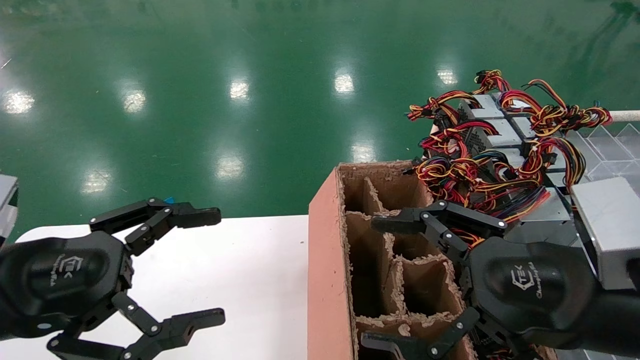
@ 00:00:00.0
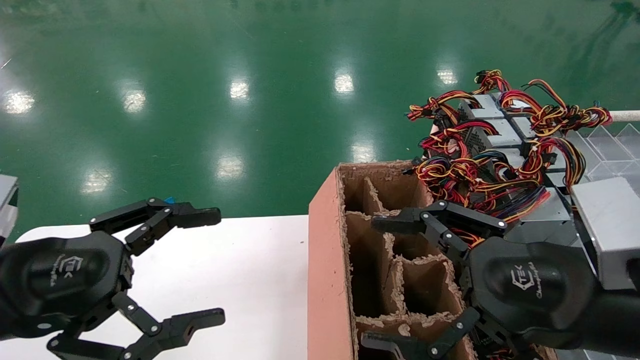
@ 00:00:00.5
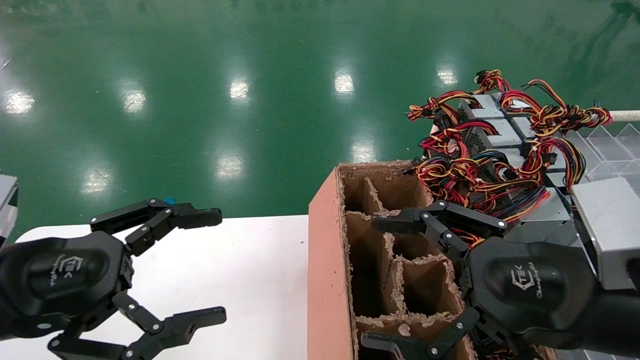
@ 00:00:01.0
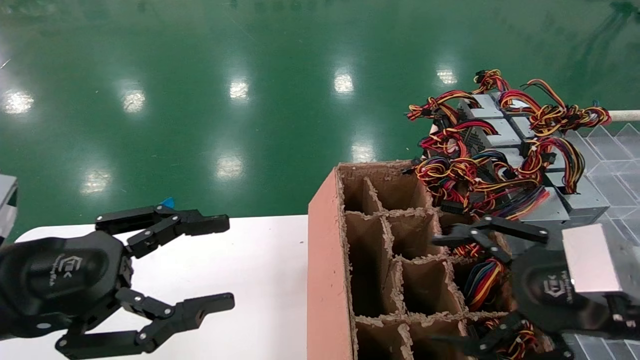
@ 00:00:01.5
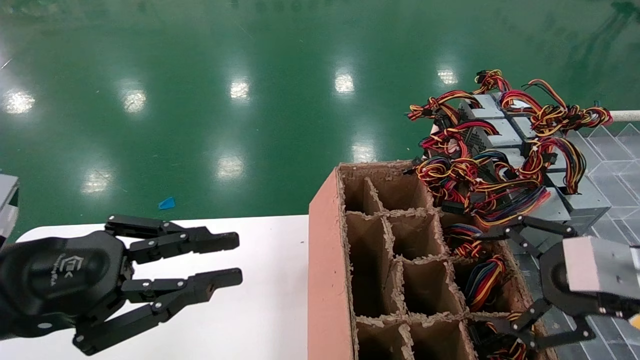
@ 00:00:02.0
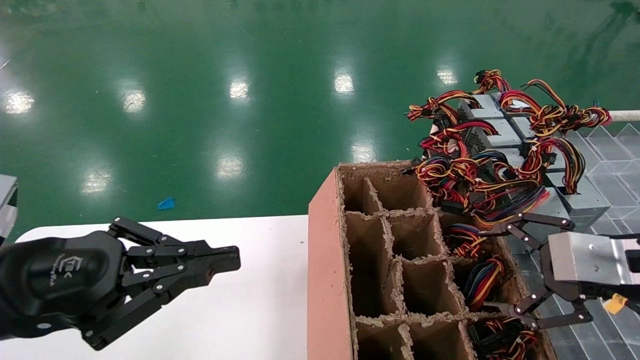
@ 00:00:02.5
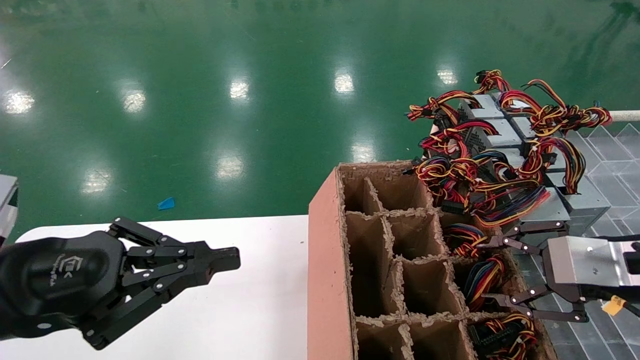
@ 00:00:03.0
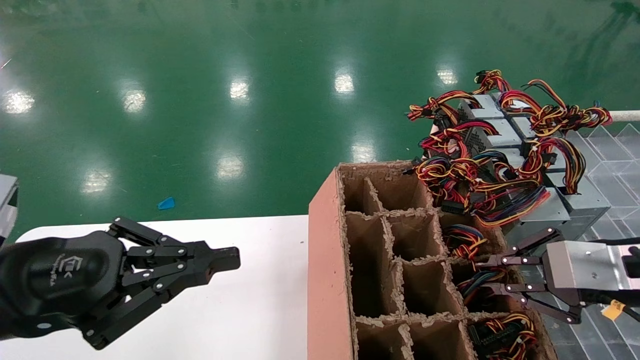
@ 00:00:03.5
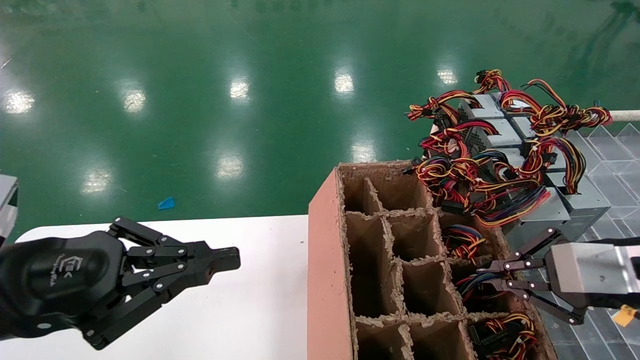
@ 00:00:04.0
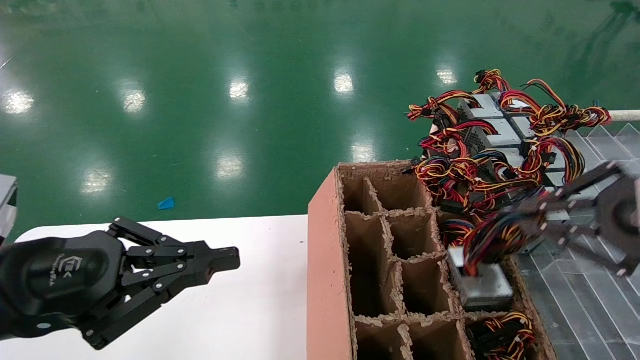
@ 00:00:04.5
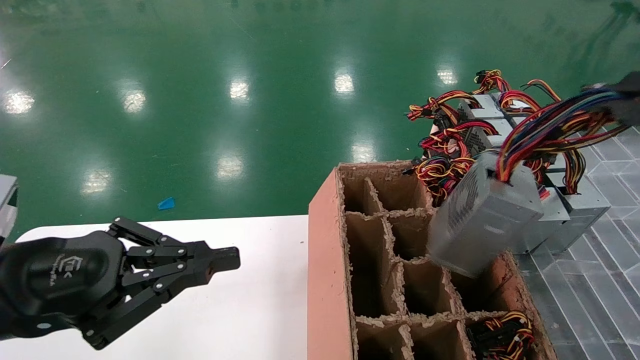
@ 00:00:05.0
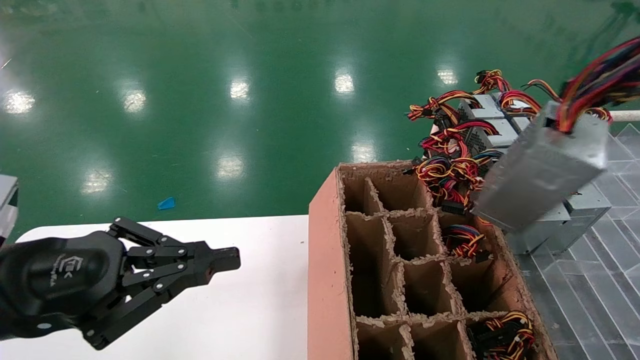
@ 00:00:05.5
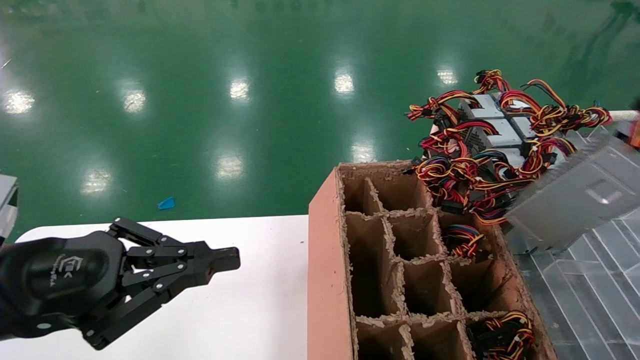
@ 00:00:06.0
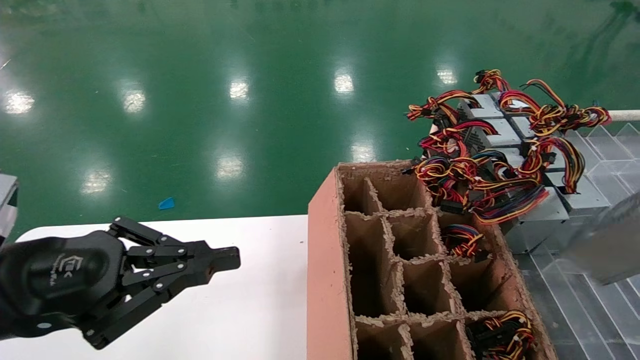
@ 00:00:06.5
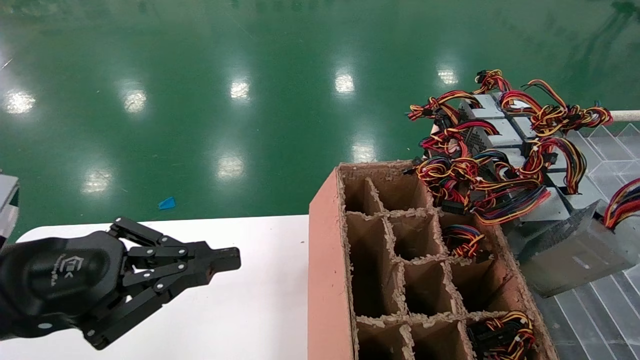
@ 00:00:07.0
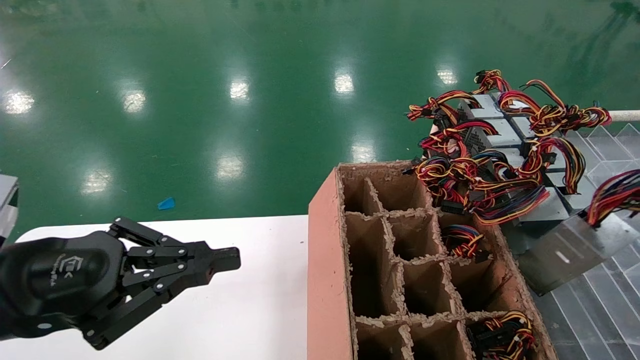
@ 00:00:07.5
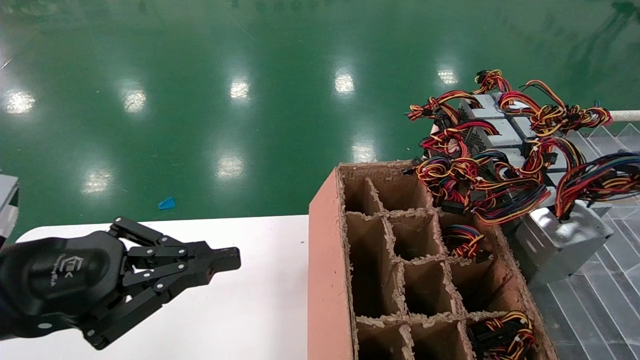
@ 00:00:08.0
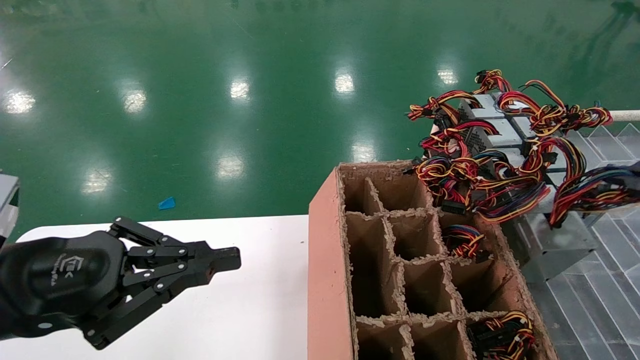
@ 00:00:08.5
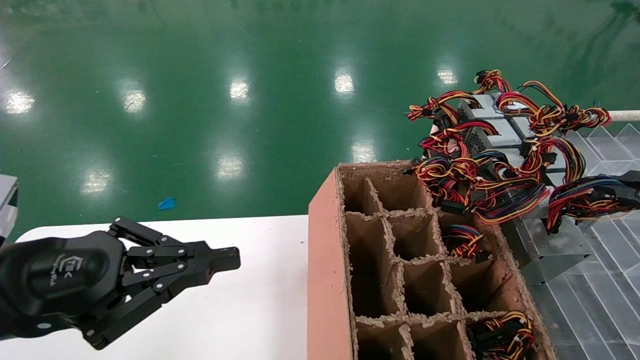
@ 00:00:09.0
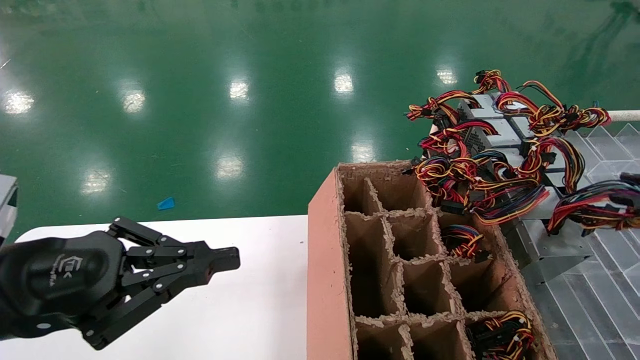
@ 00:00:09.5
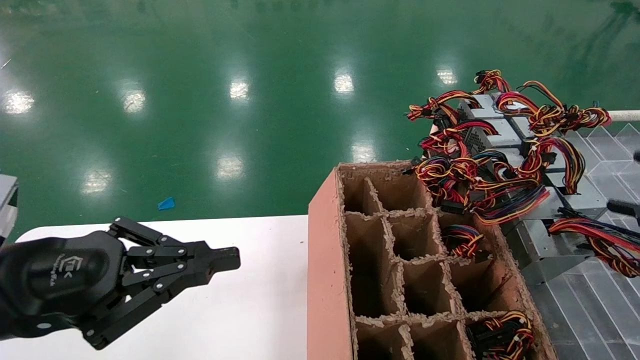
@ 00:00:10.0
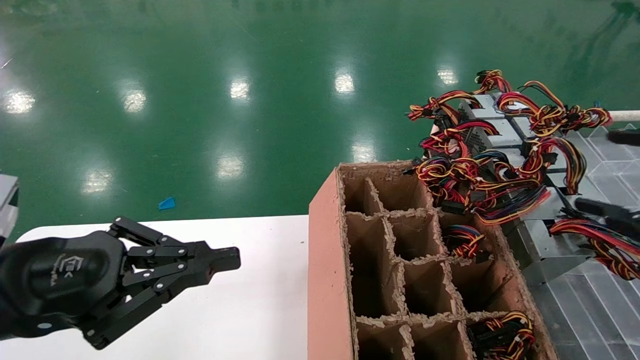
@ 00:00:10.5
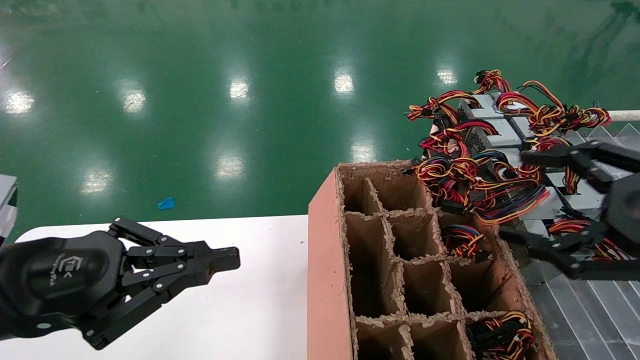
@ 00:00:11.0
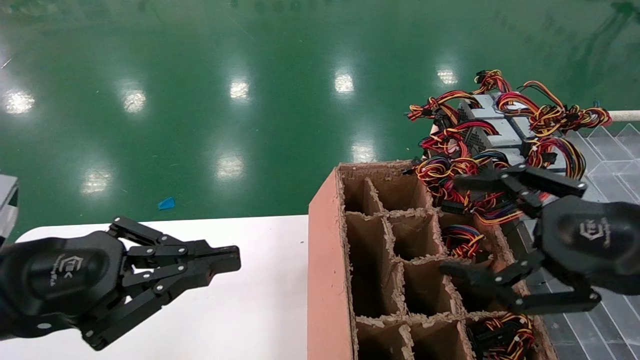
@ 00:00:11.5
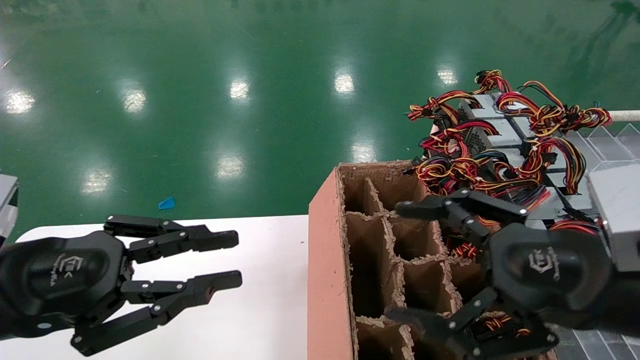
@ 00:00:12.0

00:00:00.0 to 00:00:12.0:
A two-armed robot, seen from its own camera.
Step, 00:00:01.5 to 00:00:03.5: Grab the main unit power supply from the containment box.
Step, 00:00:04.0 to 00:00:10.0: Place the main unit power supply in the designated area.
00:00:00.0 to 00:00:02.0: The right gripper travels to the right by some 10 cm, while the left gripper closes up.
00:00:02.0 to 00:00:04.0: The left gripper closes up. Meanwhile the right gripper closes its fingers.
00:00:04.0 to 00:00:06.0: The right gripper heads backward, upward and to the right, covering about 25 cm.
00:00:06.0 to 00:00:08.0: The right gripper shifts about 15 cm forward and downward.
00:00:08.0 to 00:00:10.0: The right gripper opens up.
00:00:10.0 to 00:00:12.0: The right gripper shifts some 20 cm to the left, and opens its fingers.

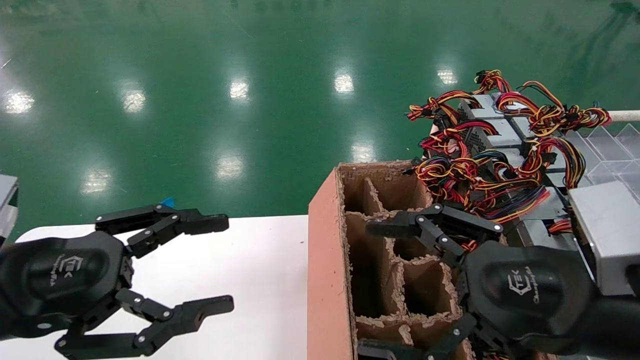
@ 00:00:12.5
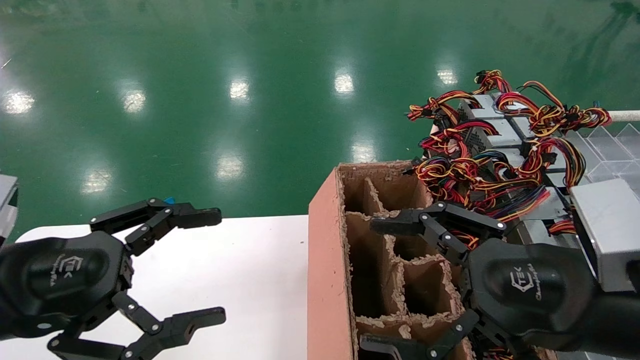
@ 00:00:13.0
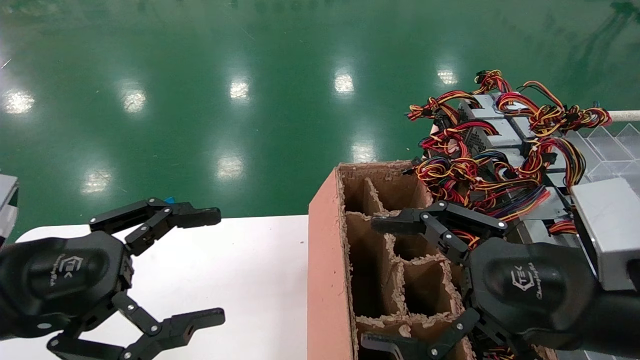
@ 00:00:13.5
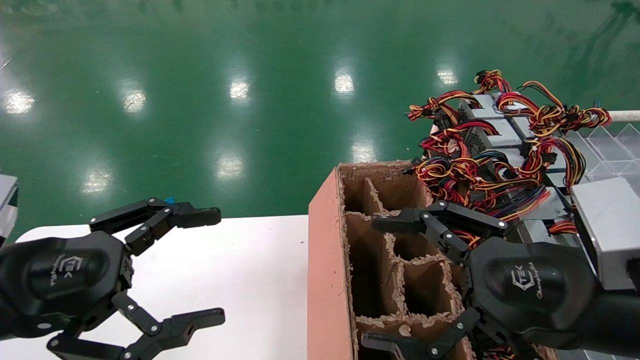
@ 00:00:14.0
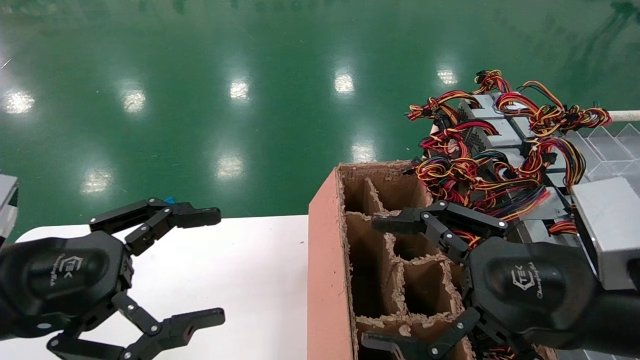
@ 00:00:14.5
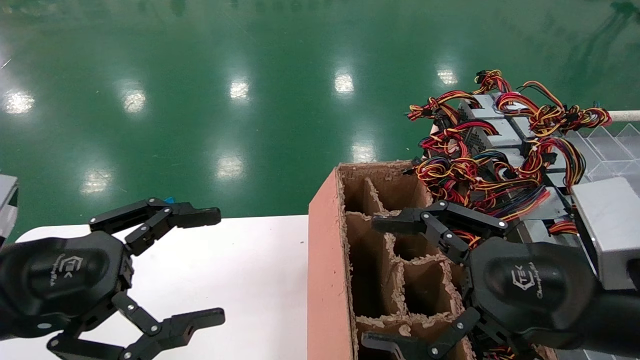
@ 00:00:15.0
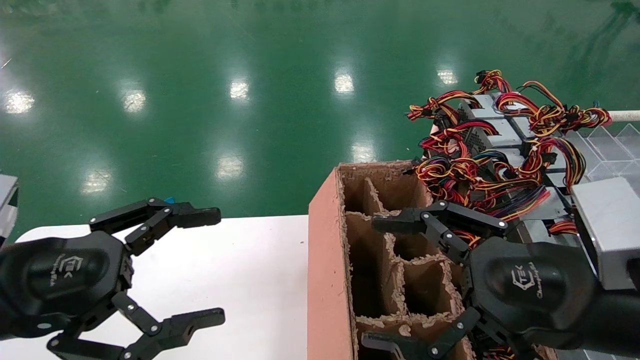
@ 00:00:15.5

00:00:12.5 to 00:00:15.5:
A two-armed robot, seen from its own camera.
00:00:12.5 to 00:00:14.0: The left gripper opens up.
00:00:14.0 to 00:00:15.5: Neither gripper changes place.
